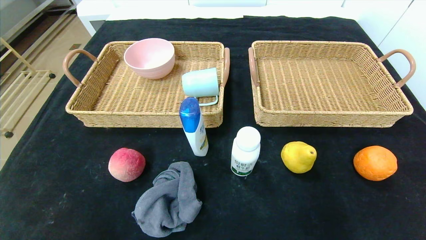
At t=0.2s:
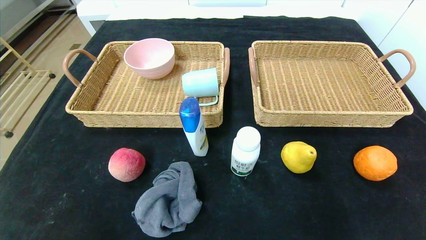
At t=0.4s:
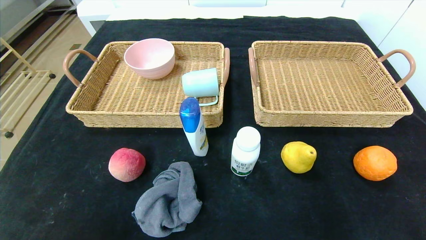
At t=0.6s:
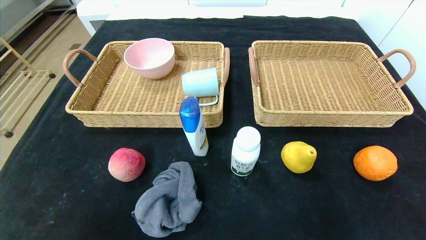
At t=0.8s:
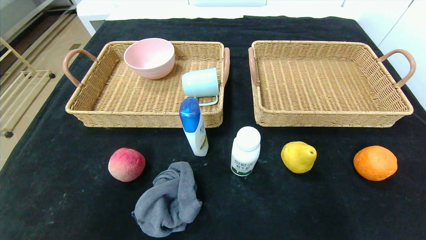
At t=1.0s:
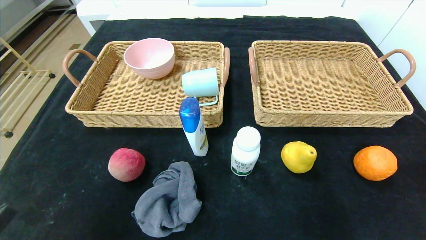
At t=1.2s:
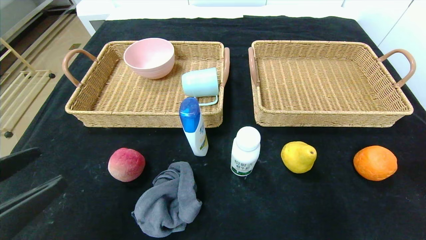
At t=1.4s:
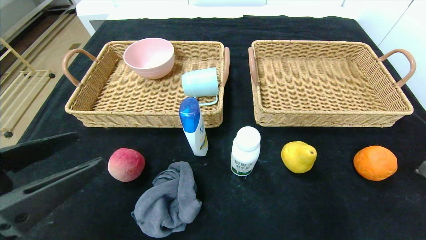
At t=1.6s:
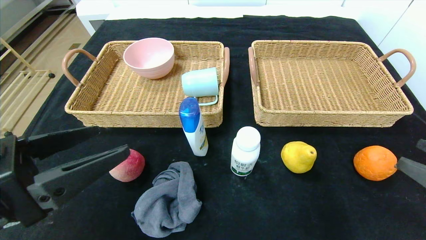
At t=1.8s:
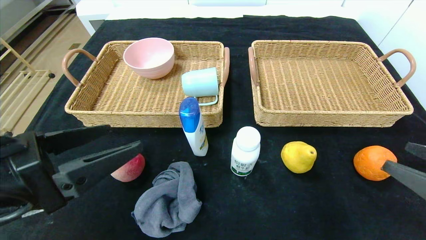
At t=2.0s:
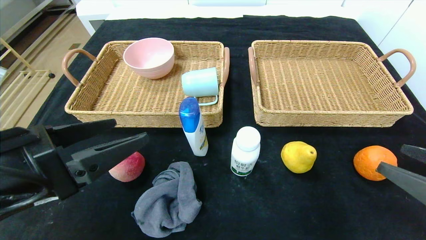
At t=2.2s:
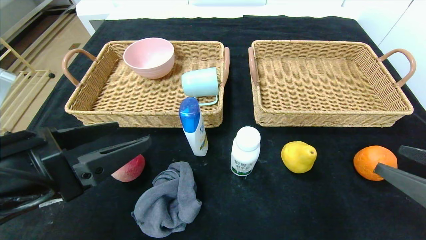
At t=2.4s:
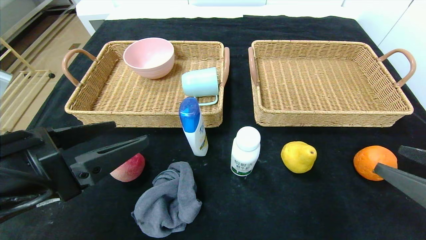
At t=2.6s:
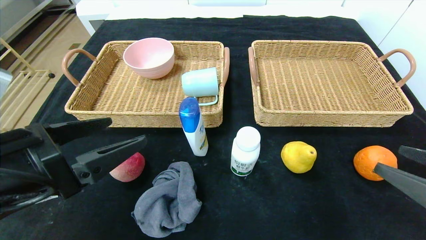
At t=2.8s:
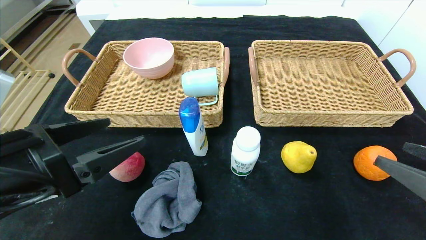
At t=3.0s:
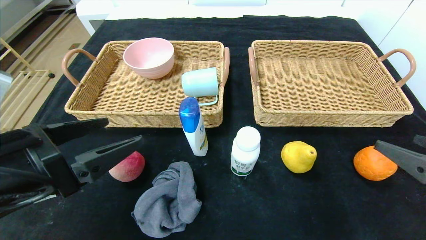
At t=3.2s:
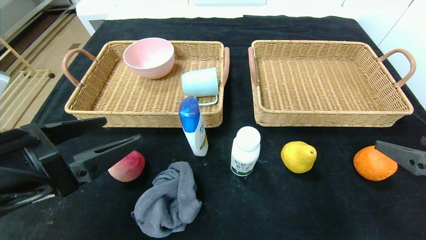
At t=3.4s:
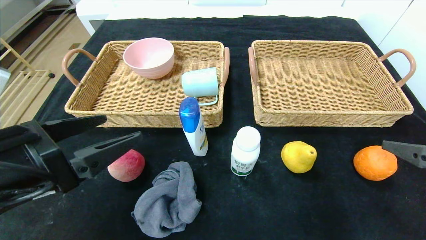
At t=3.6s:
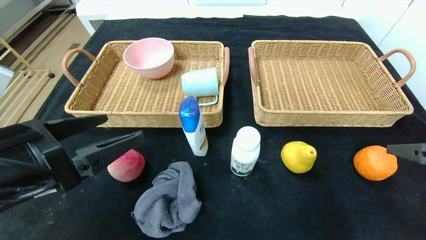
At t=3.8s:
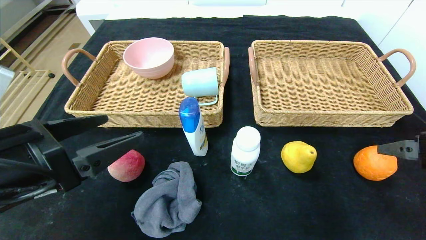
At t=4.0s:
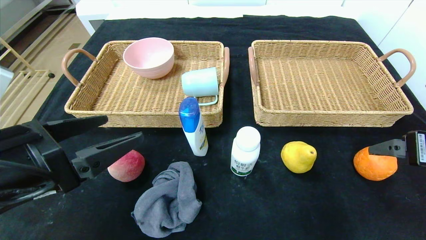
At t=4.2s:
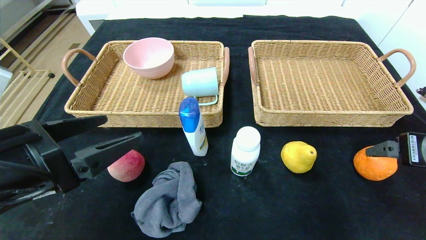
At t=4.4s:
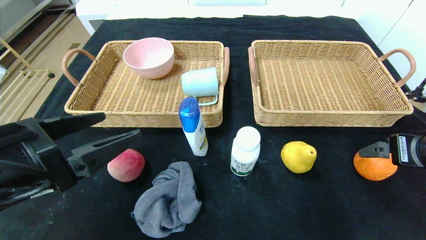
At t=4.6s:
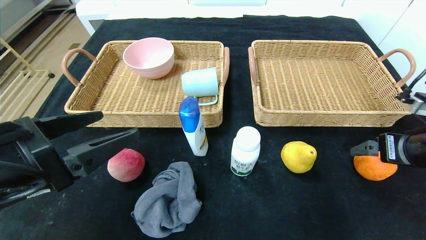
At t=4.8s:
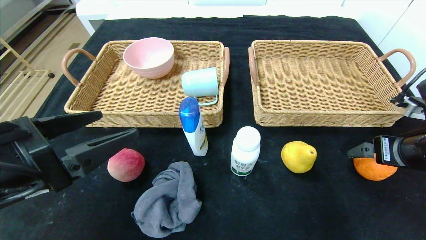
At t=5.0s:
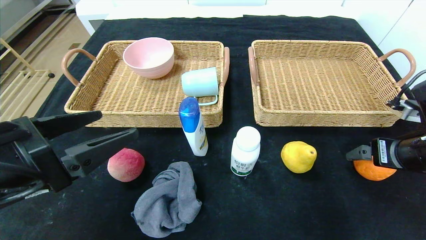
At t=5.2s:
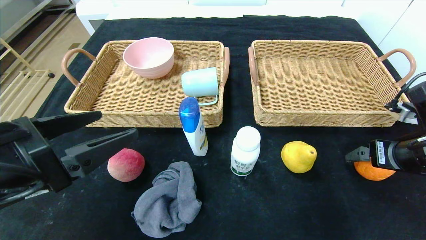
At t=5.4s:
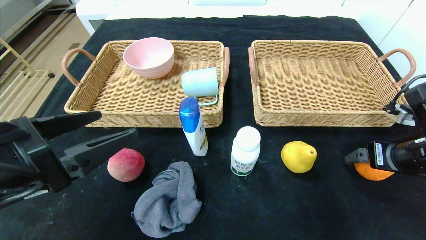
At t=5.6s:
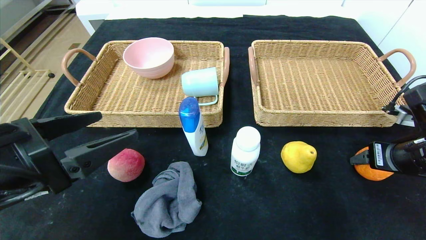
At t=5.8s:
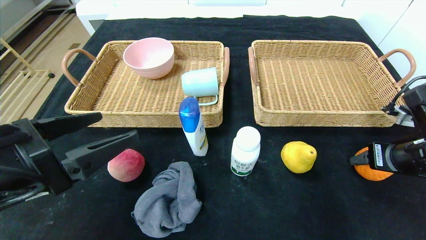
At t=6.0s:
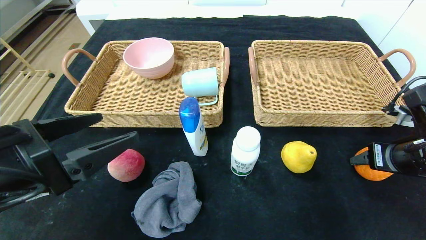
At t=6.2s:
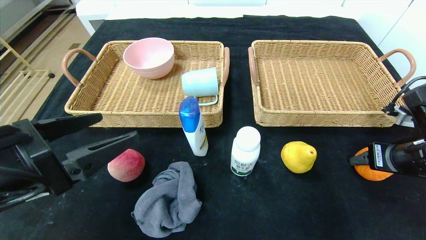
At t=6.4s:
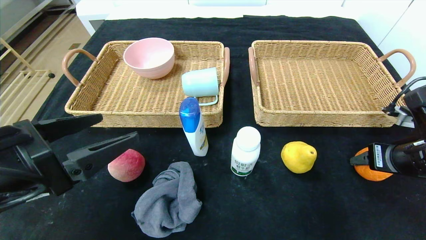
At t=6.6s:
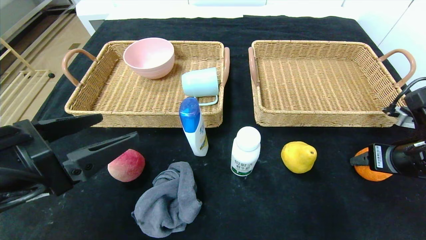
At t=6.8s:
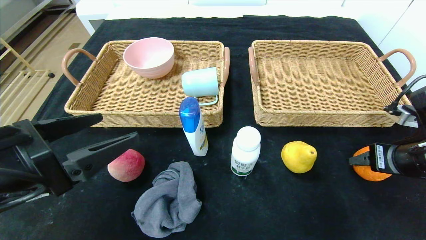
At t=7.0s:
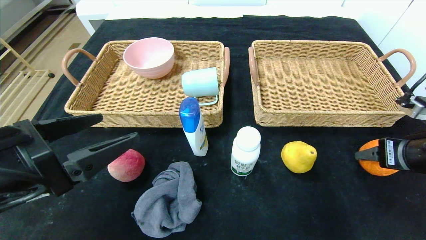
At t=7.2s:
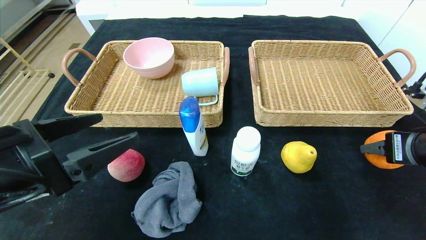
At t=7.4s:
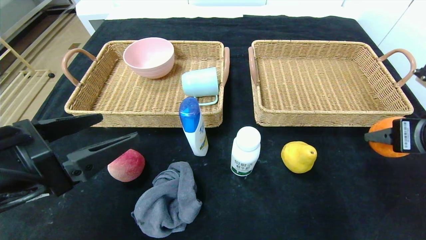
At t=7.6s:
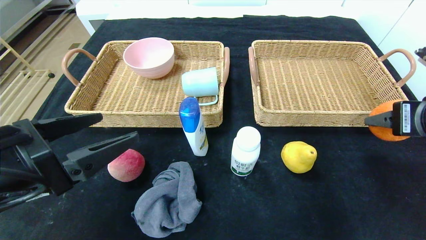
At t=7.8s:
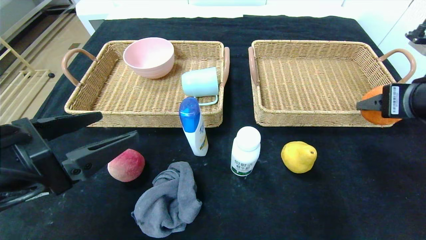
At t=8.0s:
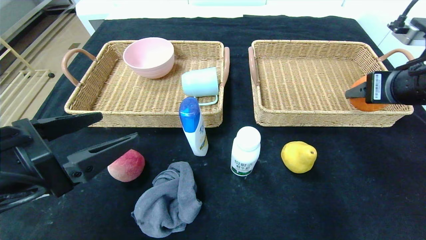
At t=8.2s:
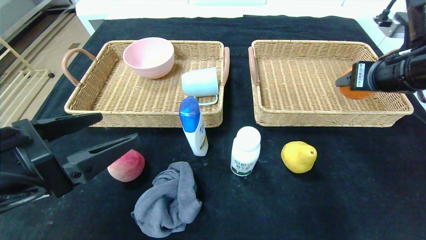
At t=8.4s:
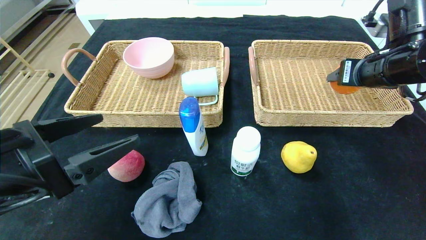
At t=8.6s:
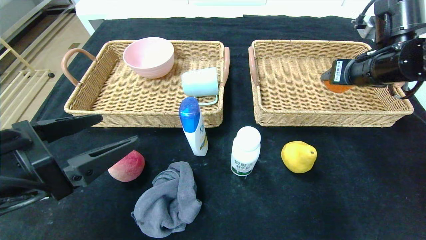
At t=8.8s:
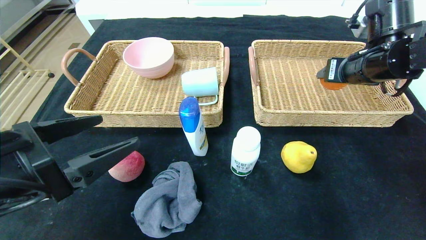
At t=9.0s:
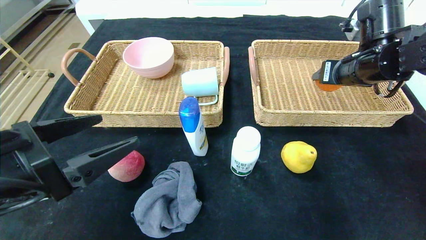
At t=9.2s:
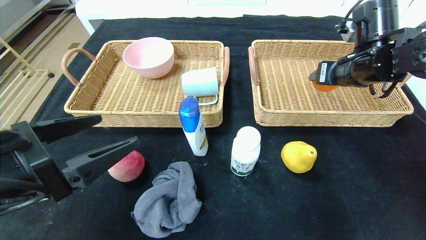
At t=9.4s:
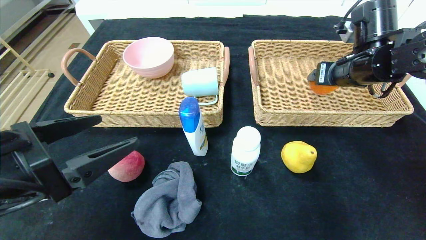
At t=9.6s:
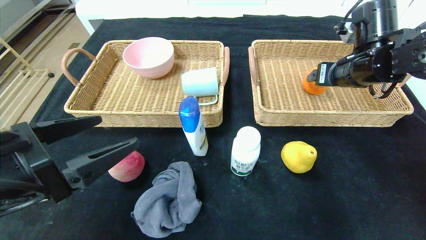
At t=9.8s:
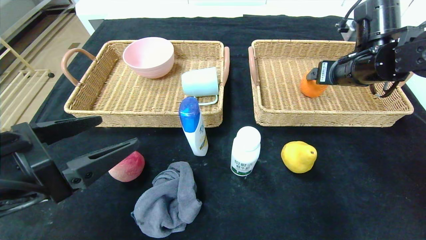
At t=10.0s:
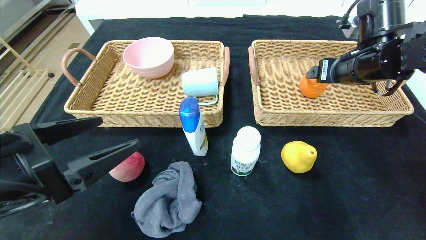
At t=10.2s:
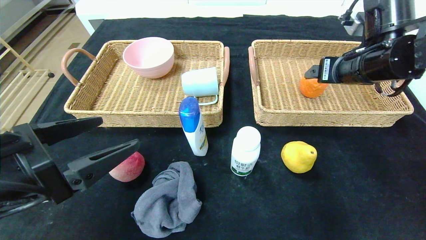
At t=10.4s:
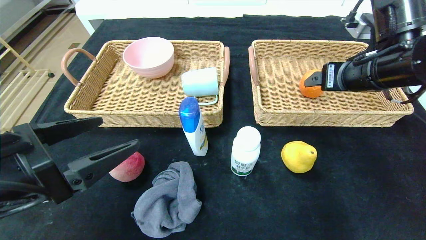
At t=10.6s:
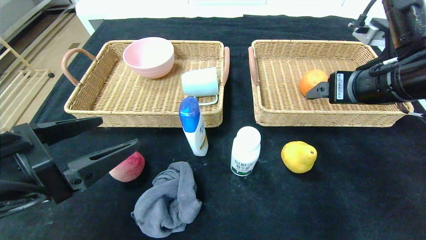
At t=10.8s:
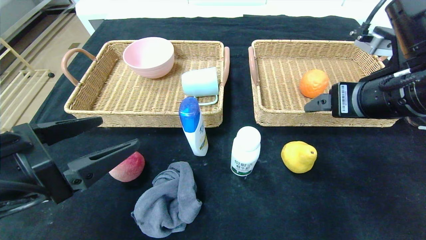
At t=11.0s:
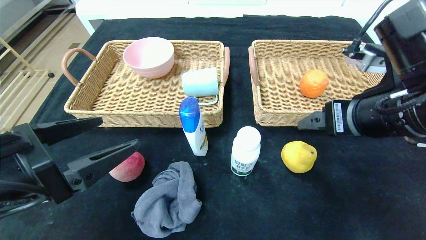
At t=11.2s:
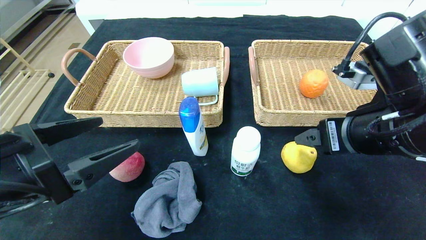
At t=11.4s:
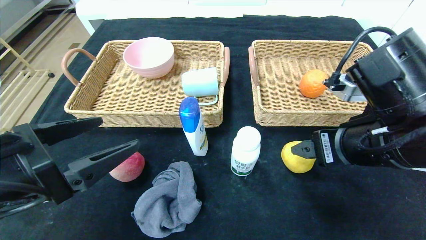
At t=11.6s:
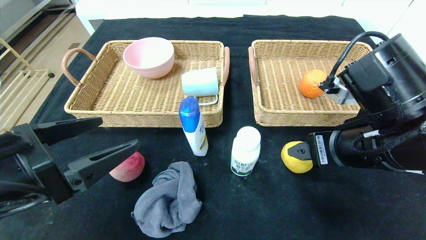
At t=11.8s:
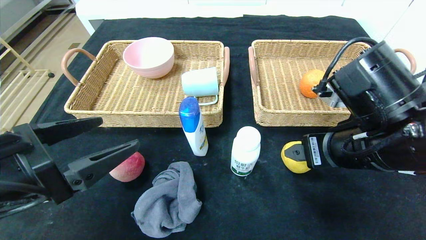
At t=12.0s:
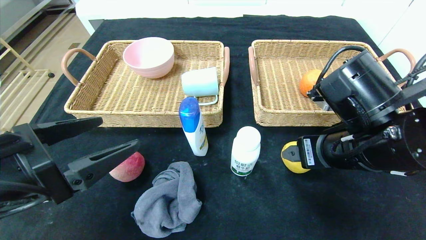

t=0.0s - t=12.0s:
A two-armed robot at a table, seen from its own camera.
Step, t=0.0s - t=9.8s: Grasp the orange and put it in the right basket.
t=0.0s - t=1.6s: Both grippers move upward and forward, about 20 cm.
t=1.6s - t=3.0s: The grippers move only a little.
t=3.0s - t=4.4s: The right gripper is displaced forward by roughly 10 cm.
t=4.4s - t=6.0s: The right gripper closes.
t=6.0s - t=7.6s: The right gripper goes roughly 10 cm upward.
t=7.6s - t=9.0s: The right gripper travels forward by roughly 15 cm.
t=9.0s - t=10.4s: The right gripper goes roughly 5 cm backward, and opens up.
t=10.4s - t=12.0s: The right gripper travels backward, downward and to the left by roughly 10 cm.

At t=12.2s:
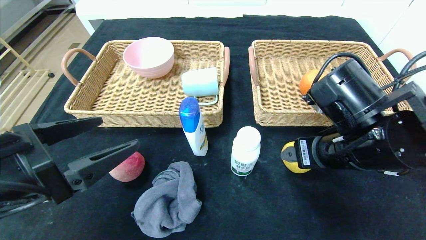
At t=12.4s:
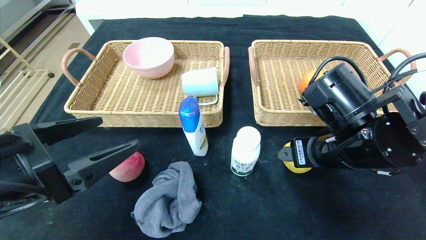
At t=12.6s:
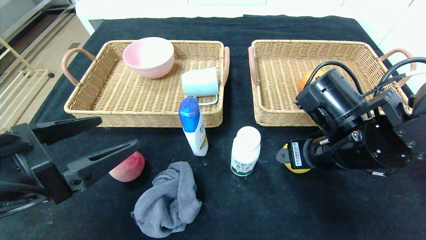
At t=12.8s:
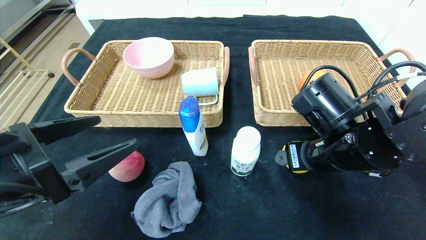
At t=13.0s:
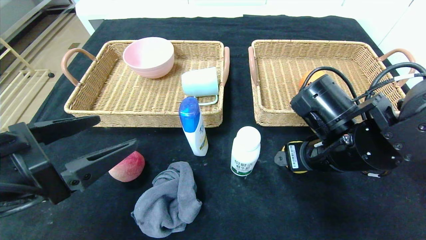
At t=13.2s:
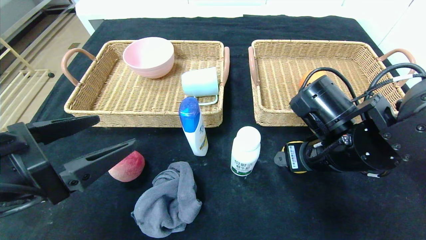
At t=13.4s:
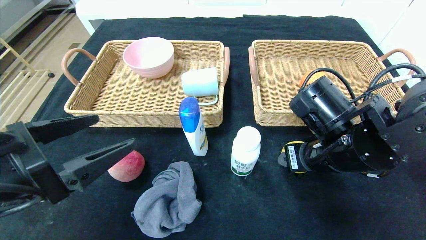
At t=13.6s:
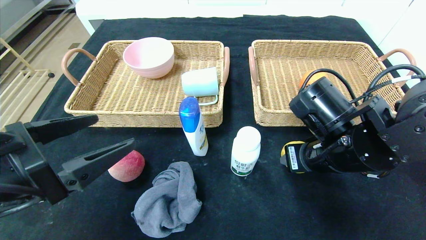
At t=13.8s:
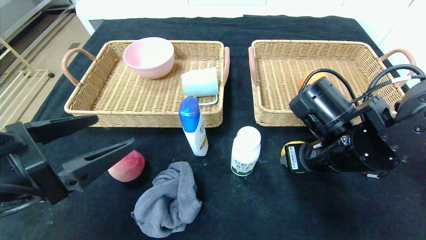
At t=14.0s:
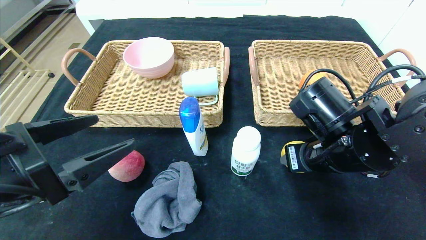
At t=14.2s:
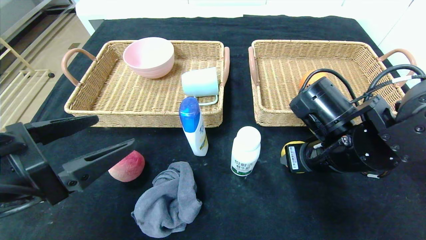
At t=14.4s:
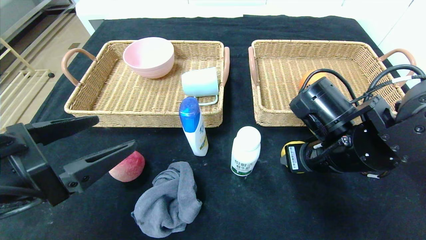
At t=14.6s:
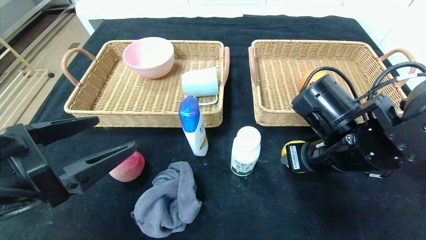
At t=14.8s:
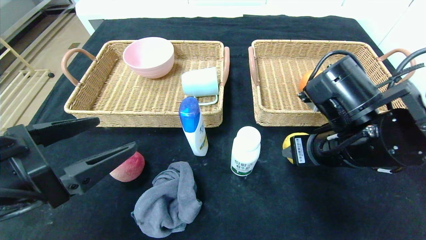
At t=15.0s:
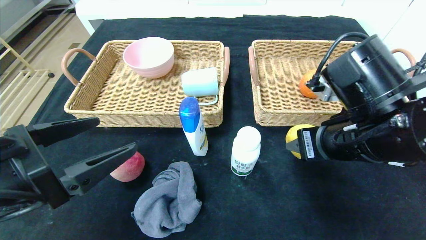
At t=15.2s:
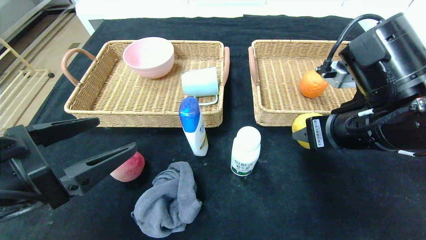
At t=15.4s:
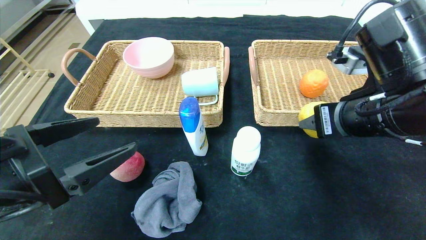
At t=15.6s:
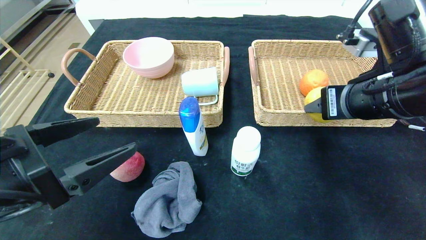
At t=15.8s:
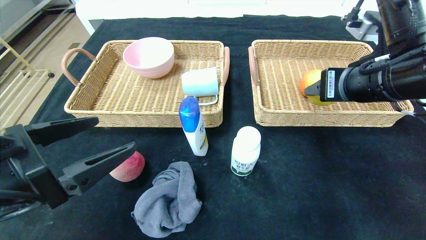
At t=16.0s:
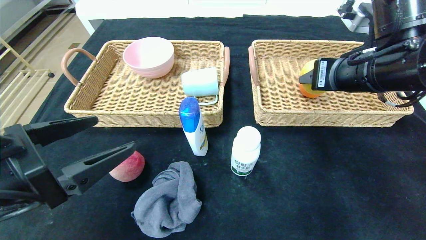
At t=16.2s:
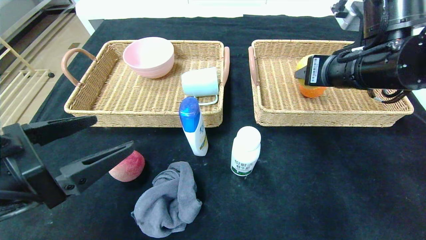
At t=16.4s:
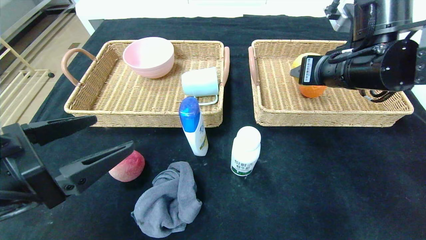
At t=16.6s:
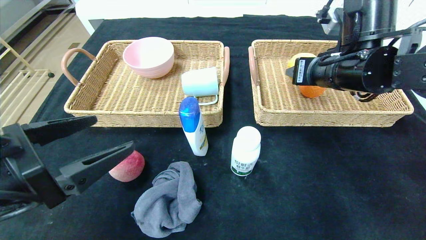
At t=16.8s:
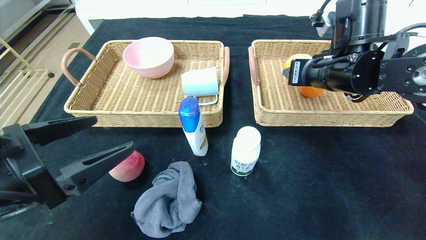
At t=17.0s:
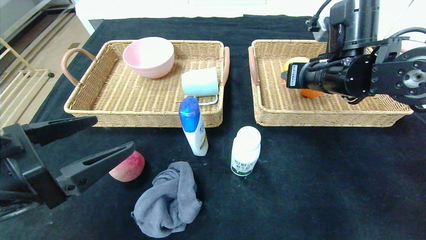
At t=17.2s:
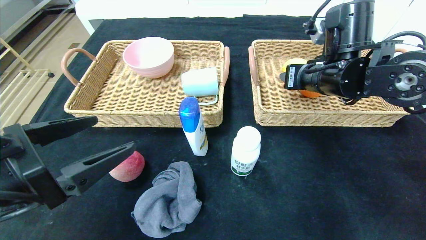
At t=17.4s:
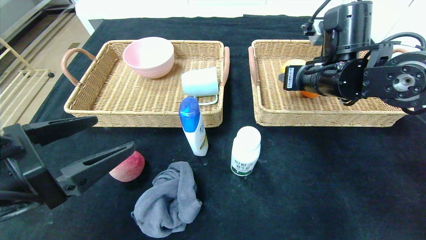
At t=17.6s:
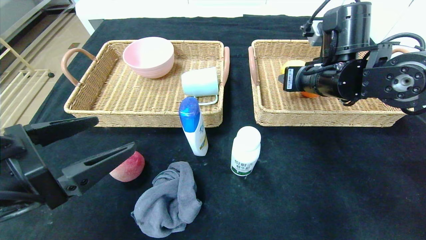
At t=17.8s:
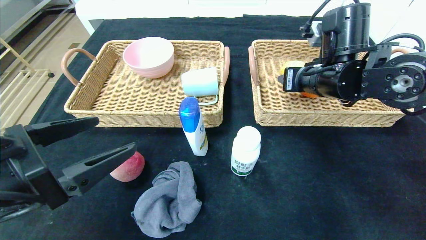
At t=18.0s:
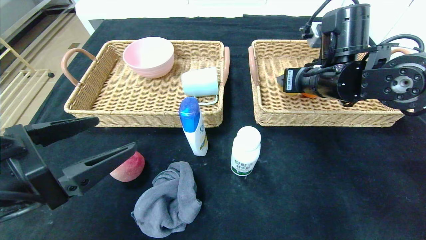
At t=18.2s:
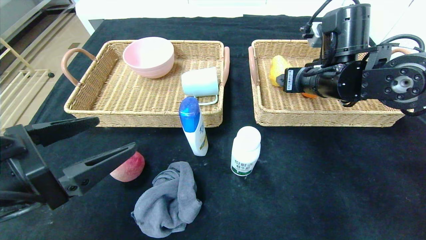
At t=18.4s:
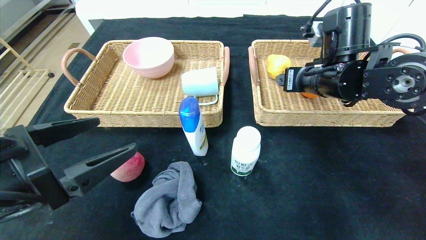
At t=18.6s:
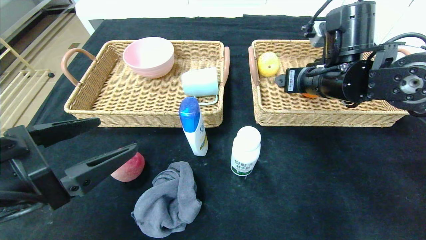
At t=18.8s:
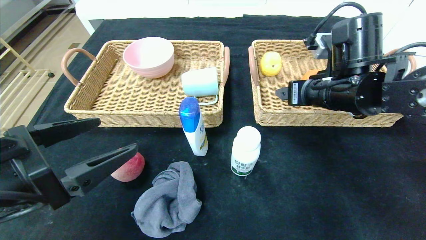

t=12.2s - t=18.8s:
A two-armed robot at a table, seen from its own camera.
Step, t=12.2s - t=18.0s: Grasp the pear and put it in the right basket.
t=12.2s - t=13.8s: The right gripper closes up.
t=13.8s - t=15.4s: The right gripper heads upward, covering some 10 cm.
t=15.4s - t=17.2s: The right gripper heads forward, covering roughly 10 cm.
t=17.2s - t=18.8s: The right gripper opens.
